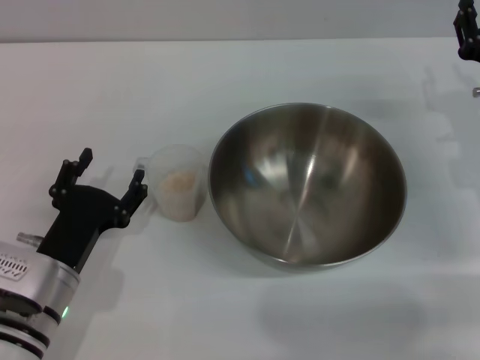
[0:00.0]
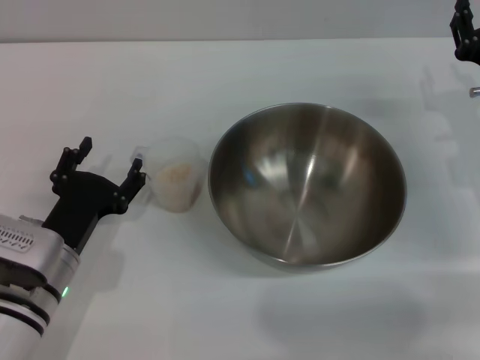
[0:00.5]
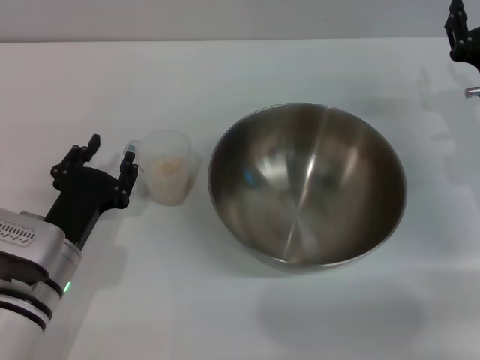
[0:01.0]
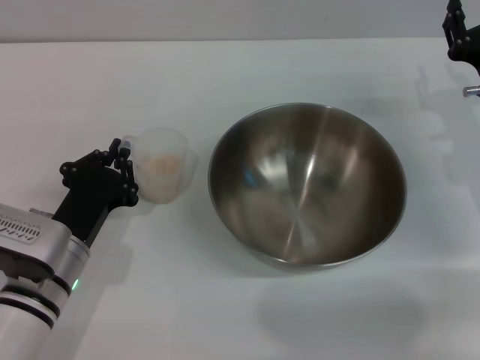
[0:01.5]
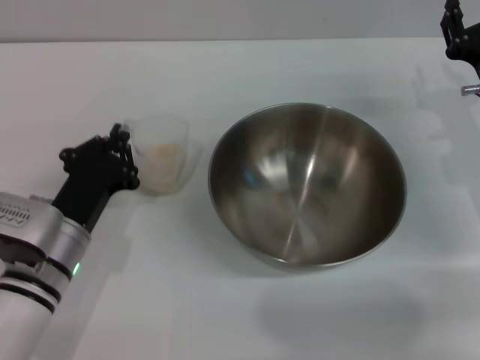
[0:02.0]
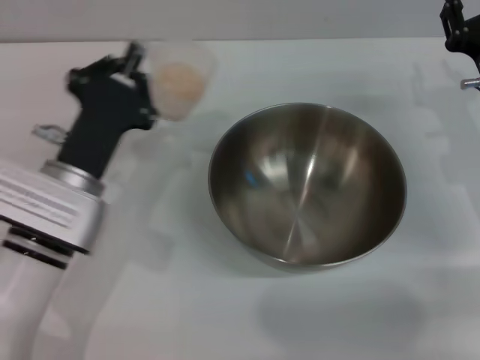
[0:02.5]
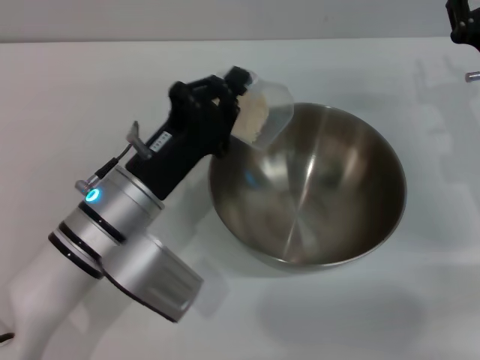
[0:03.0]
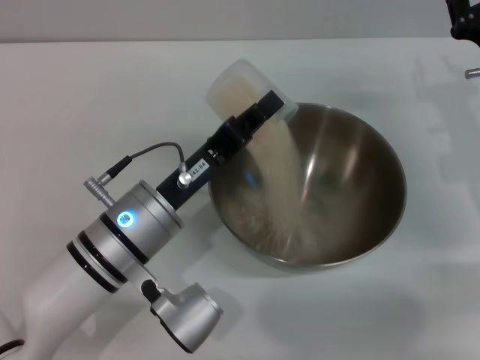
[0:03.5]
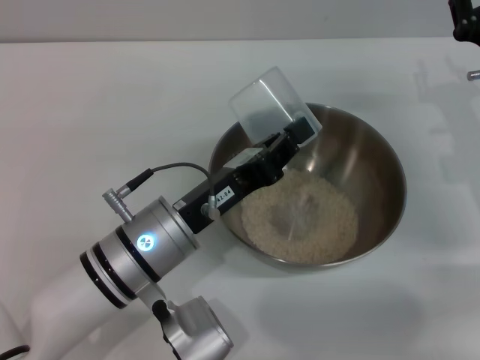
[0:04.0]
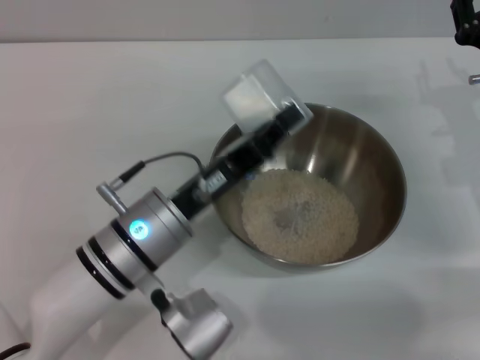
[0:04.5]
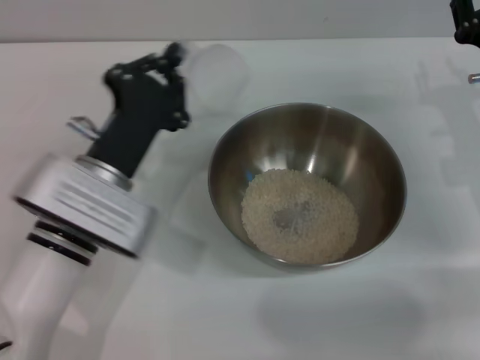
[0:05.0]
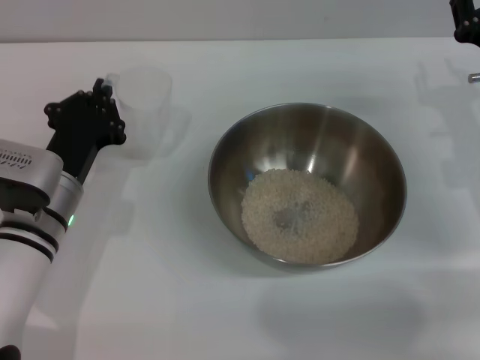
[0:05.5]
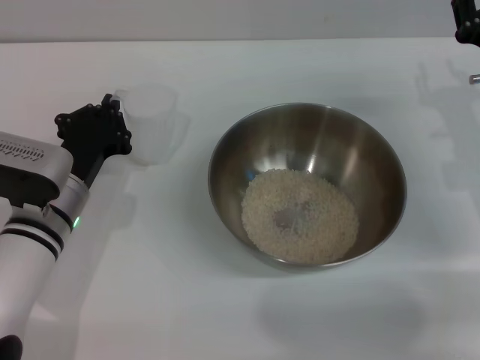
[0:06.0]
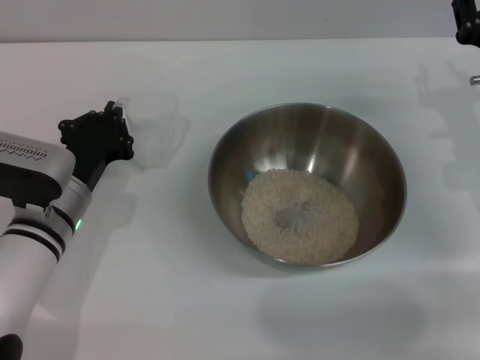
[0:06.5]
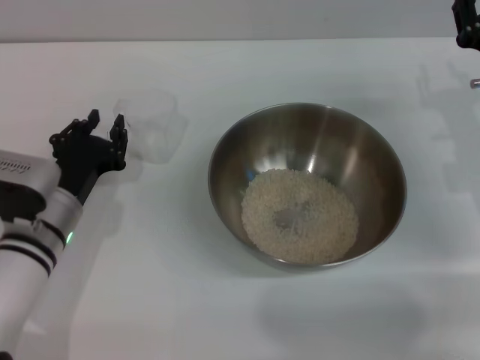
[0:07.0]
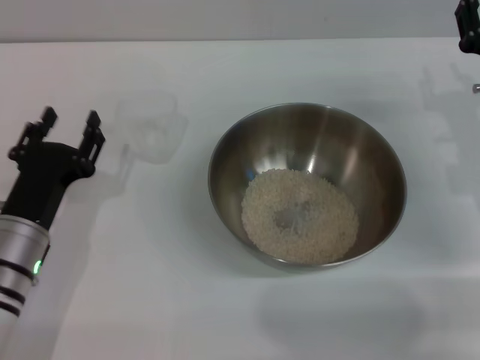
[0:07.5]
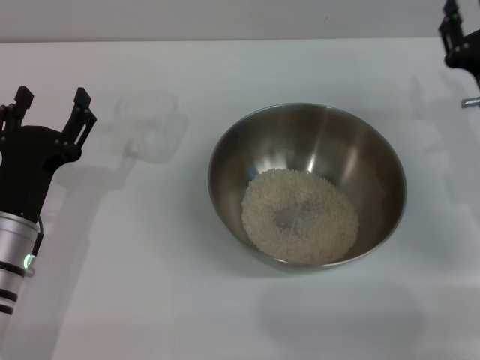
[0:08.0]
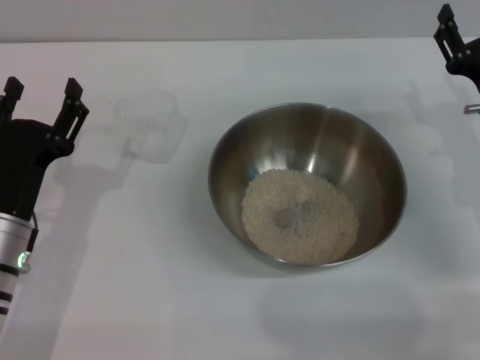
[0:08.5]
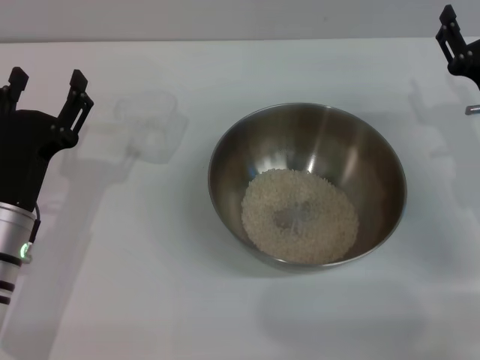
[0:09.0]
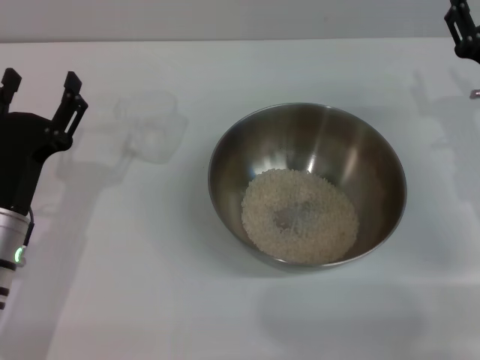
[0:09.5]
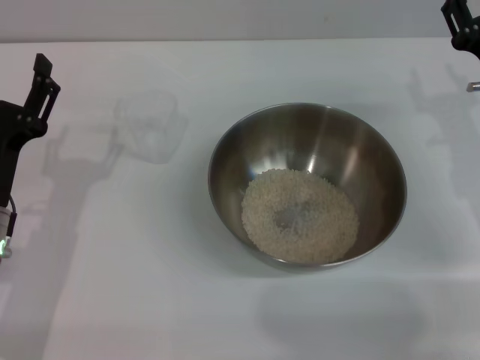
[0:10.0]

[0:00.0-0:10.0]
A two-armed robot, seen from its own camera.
Task of the whole recording: Place the bowl in the middle of the table with one hand and pour the rice from the grain cup into it with the other hand.
Step, 0:00.0 to 0:02.0: Pick up the cup with rice in it with the left gripper.
Step, 0:02.5 to 0:04.0: Pour the rice from the cup into the bowl with the left gripper.
Step, 0:04.5 to 0:07.0: Place the cup on the table with the left gripper.
0:00.0 to 0:02.0: The left gripper closes.
0:02.0 to 0:04.0: The left gripper is displaced to the right and upward by approximately 10 cm.
0:04.0 to 0:06.0: The left gripper travels to the left and forward by approximately 10 cm.
0:06.0 to 0:08.0: The left gripper is displaced backward by roughly 5 cm, and opens up.
0:08.0 to 0:10.0: There are only small adjustments of the grippers.
